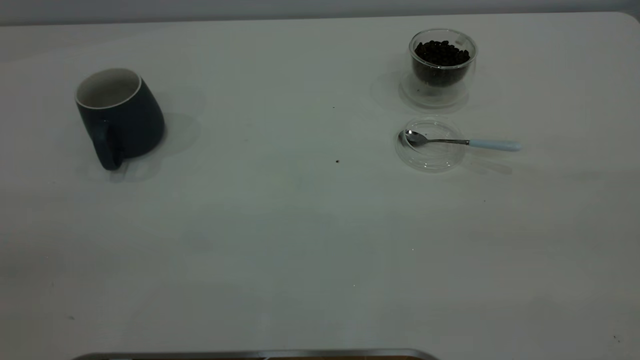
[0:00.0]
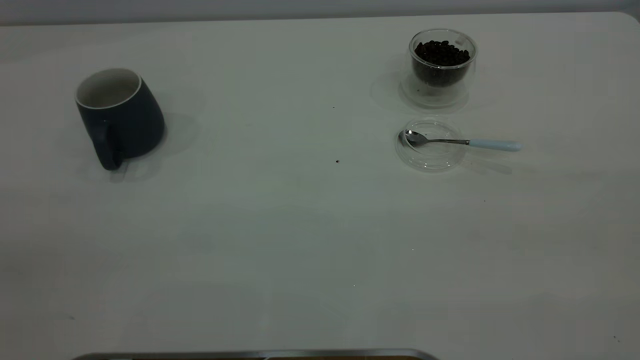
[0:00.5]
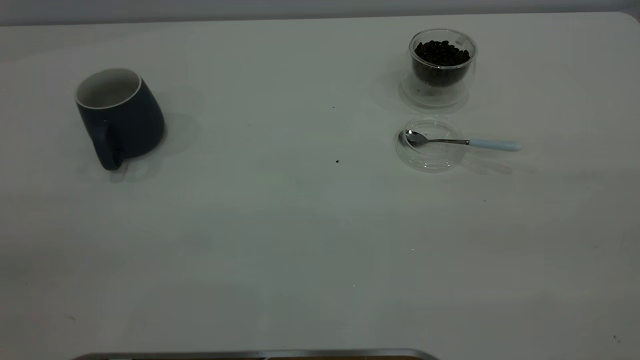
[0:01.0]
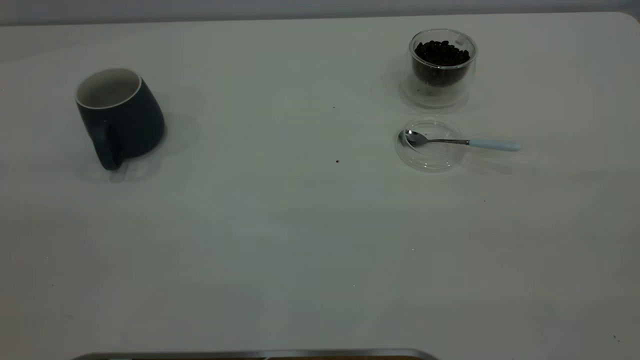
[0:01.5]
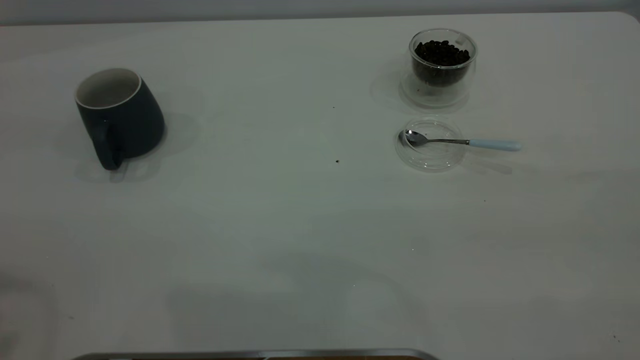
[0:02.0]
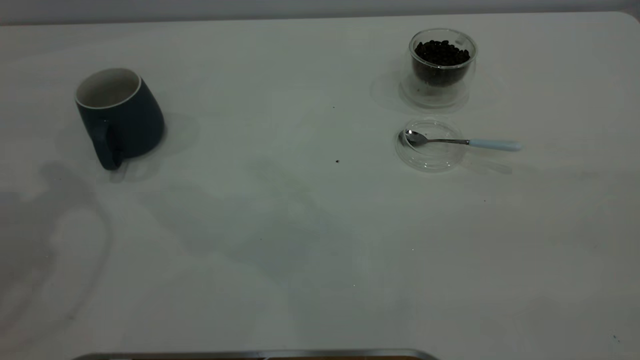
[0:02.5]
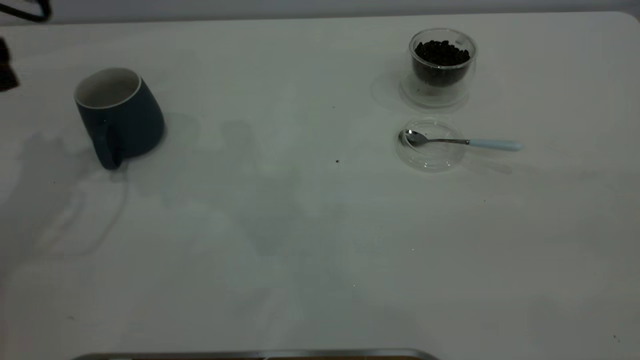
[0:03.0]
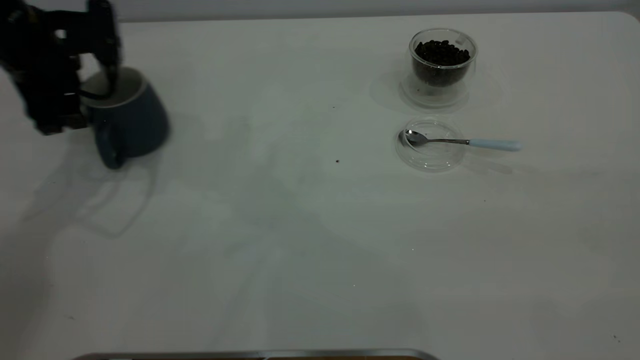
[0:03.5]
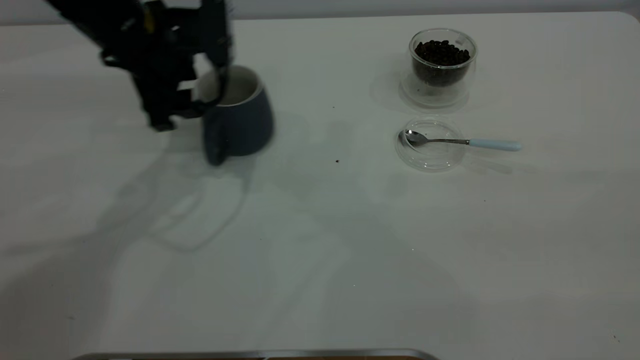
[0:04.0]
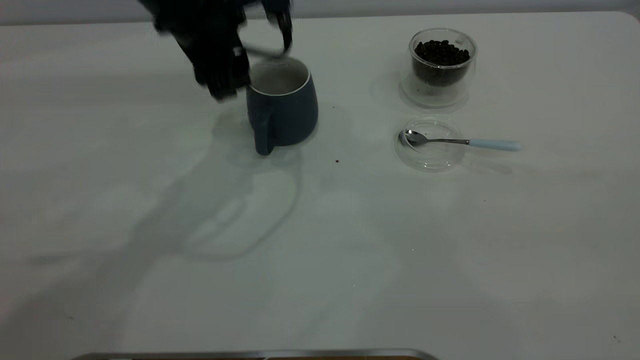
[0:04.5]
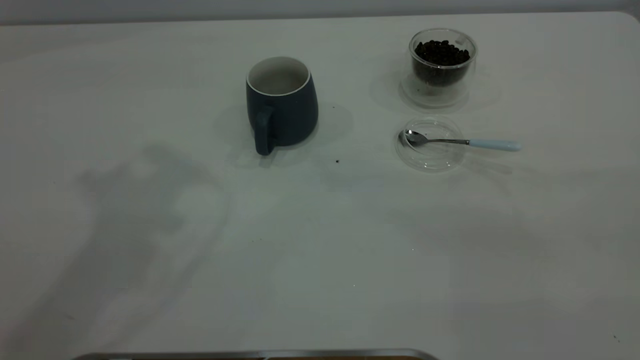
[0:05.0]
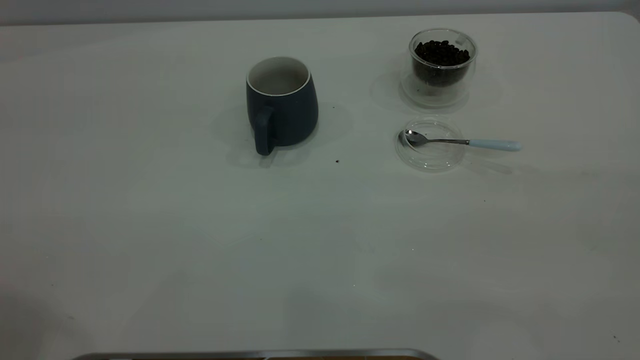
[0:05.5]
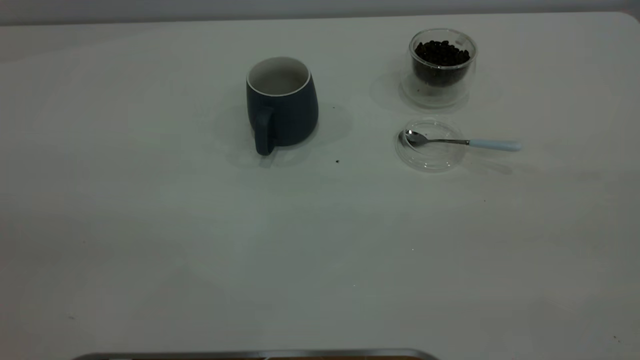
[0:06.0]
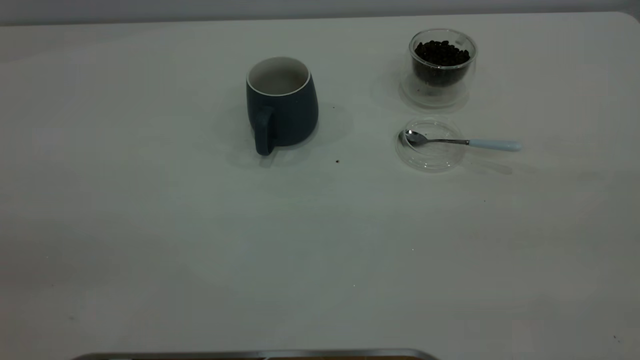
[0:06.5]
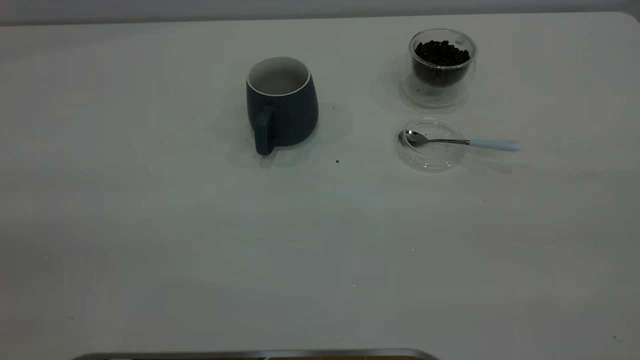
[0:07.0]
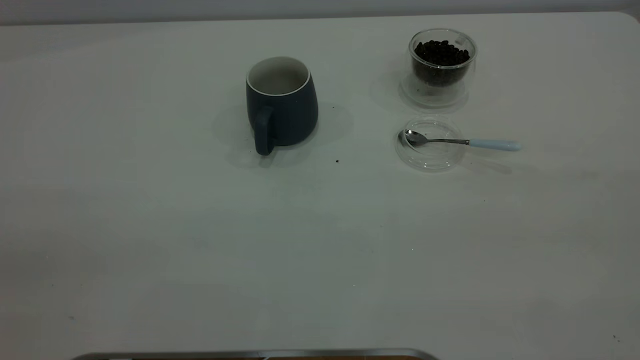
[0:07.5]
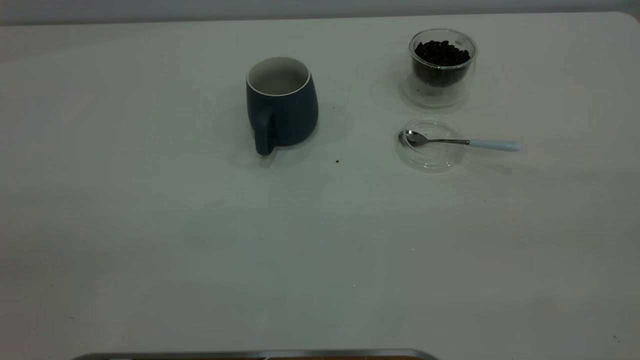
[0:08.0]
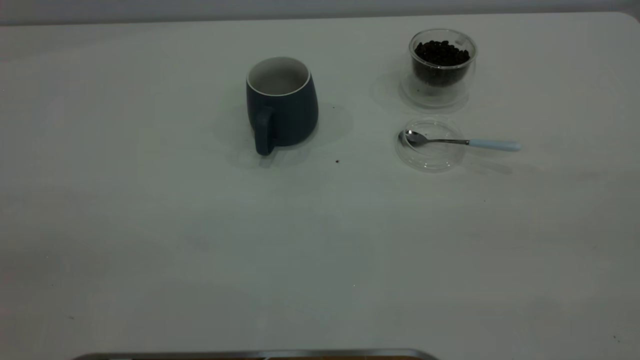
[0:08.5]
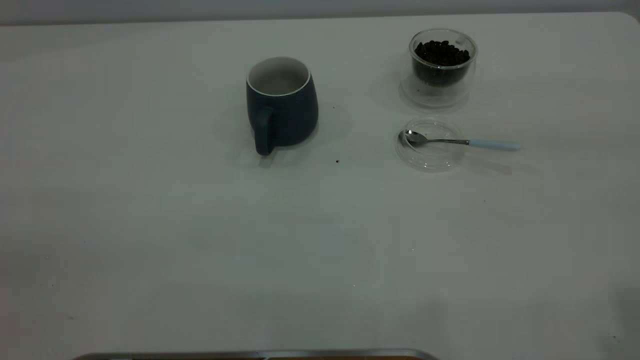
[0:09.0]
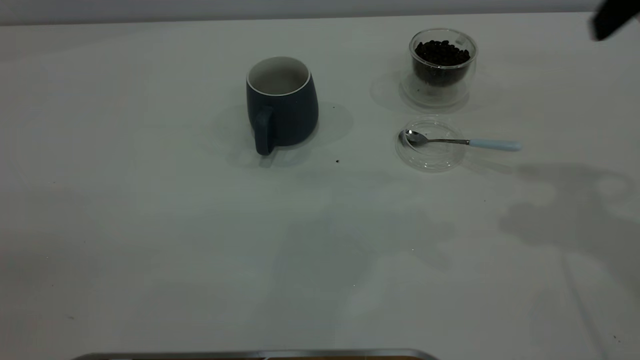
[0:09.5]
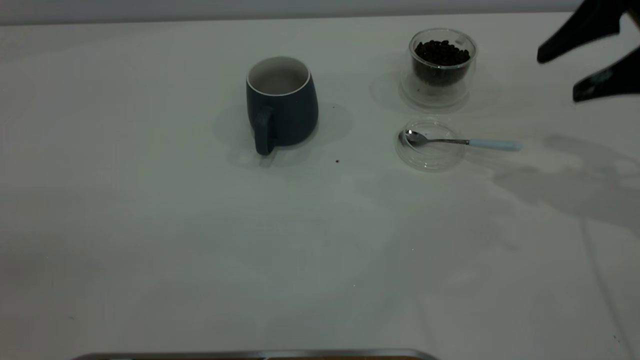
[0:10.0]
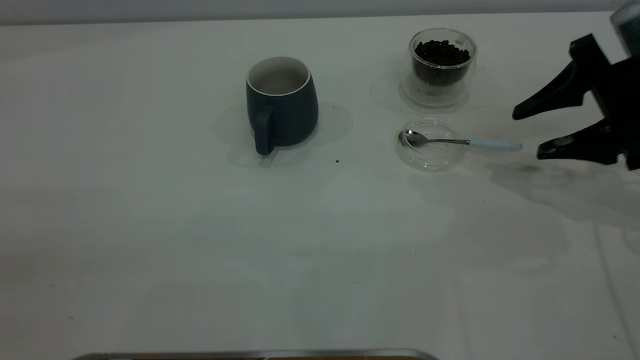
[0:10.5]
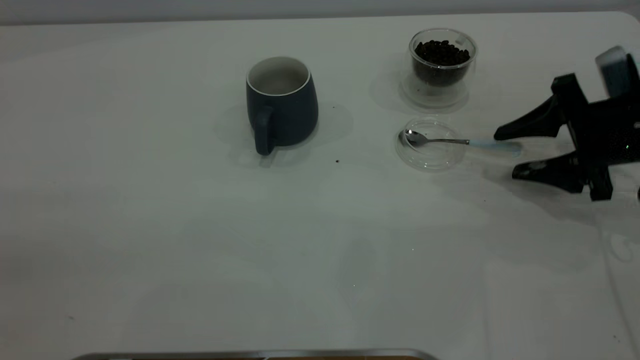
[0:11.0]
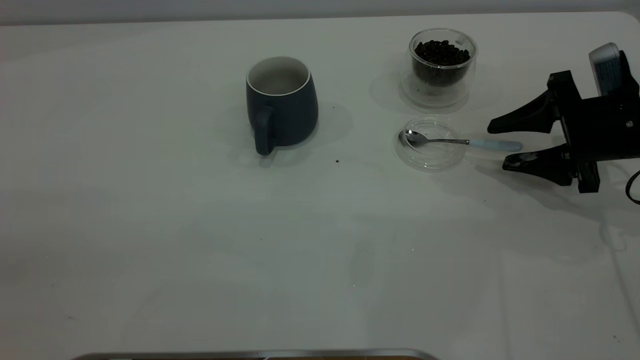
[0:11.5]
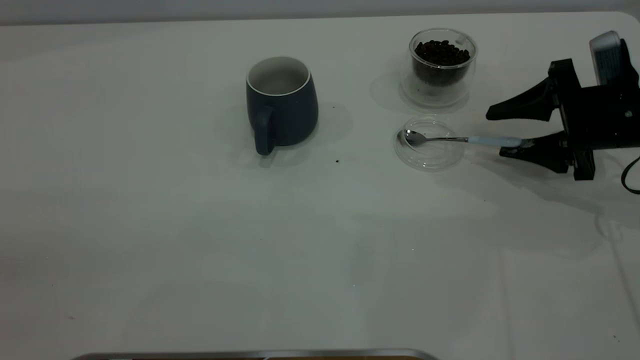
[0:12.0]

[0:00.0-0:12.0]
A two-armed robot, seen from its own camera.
Task of the whole recording: the left gripper place the grey cup in the center of the table, the right gripper take the blue spoon from the cup lid and scoop out the coffee beans from the coffee cup and put them into the grey cup, the right gripper put the spoon back into the cup lid.
Step, 0:00.0 to 0:04.5: Move the cup to the center of view.
0:02.0 to 0:04.0: The left gripper moves downward, forward and to the right, approximately 35 cm.
0:04.0 to 0:06.0: The left gripper goes roughly 40 cm backward and upward.
0:08.0 to 0:10.0: The right gripper goes about 35 cm forward and downward, and opens its fingers.
0:10.0 to 0:12.0: The right gripper shifts roughly 15 cm downward.

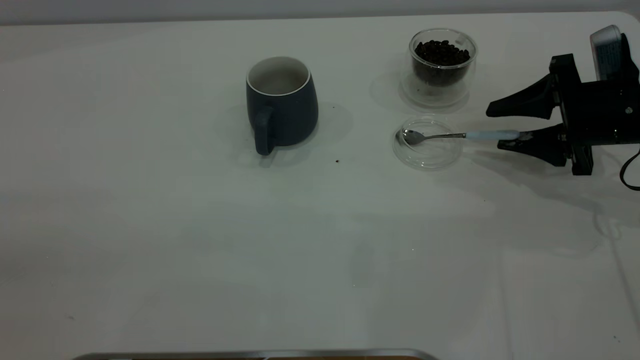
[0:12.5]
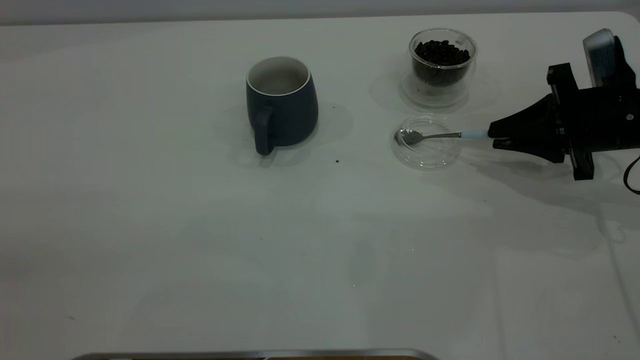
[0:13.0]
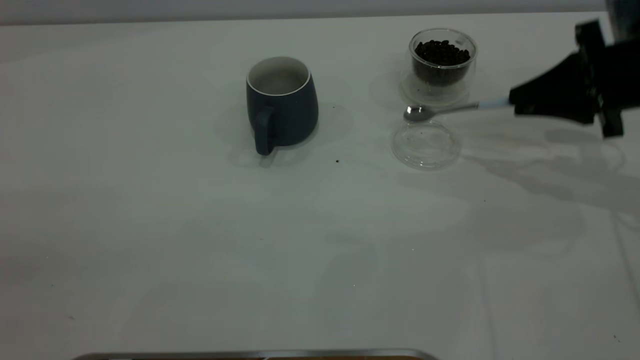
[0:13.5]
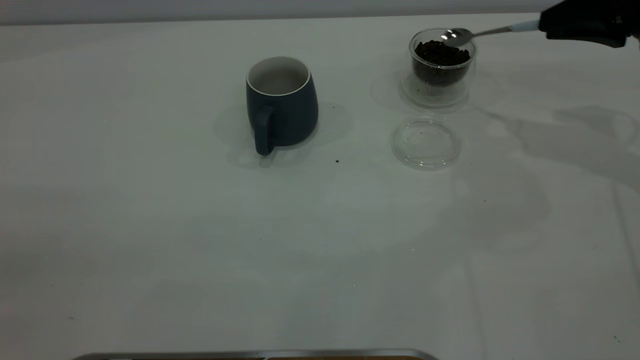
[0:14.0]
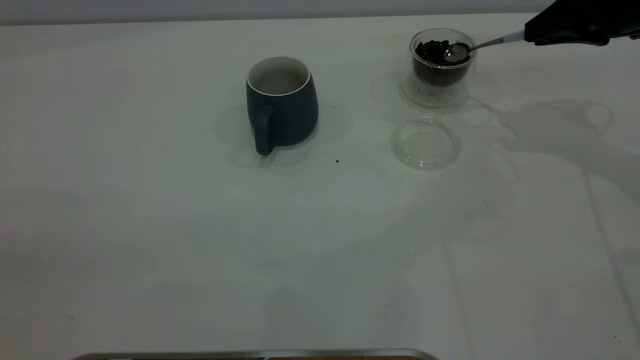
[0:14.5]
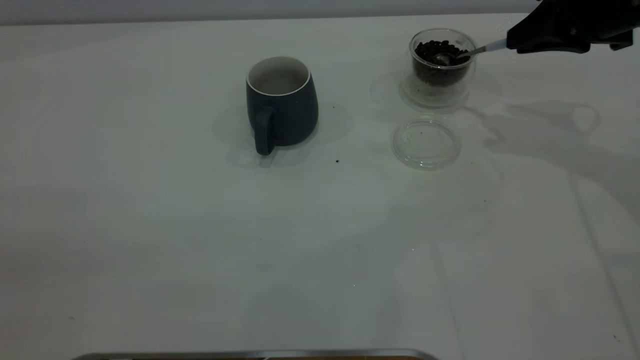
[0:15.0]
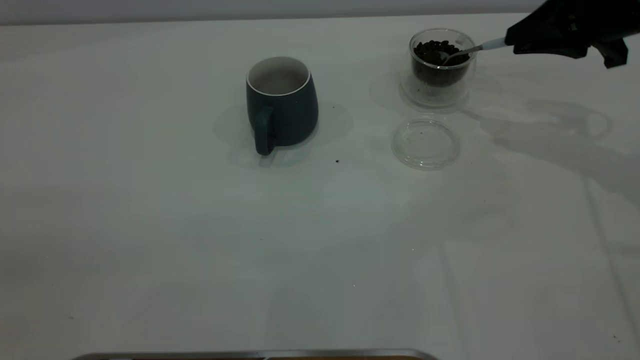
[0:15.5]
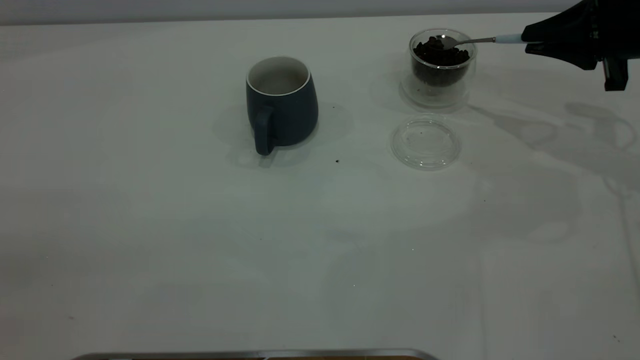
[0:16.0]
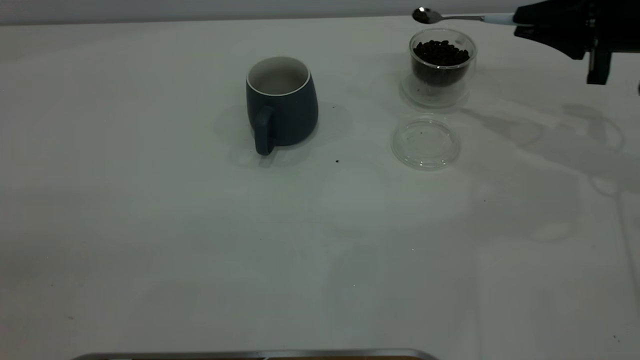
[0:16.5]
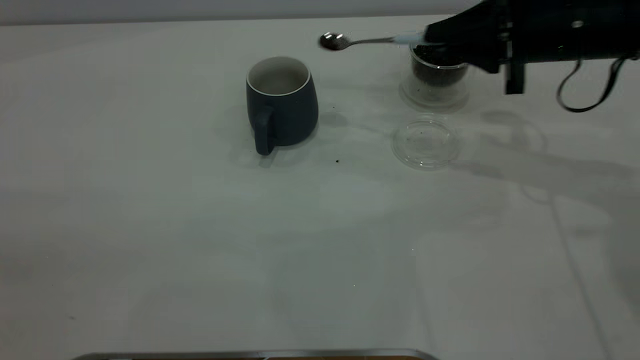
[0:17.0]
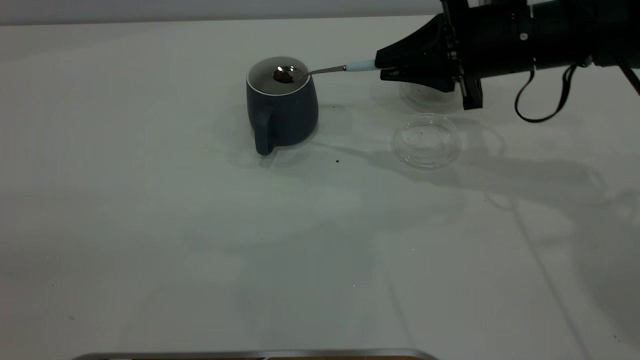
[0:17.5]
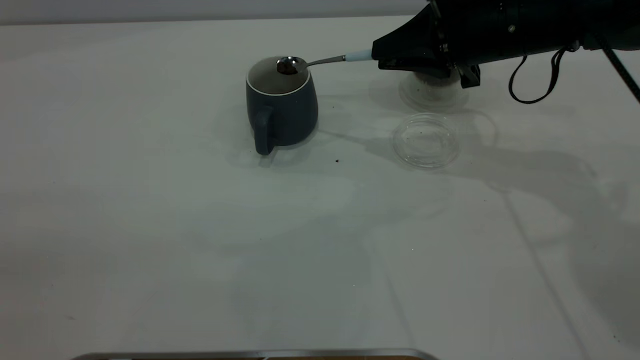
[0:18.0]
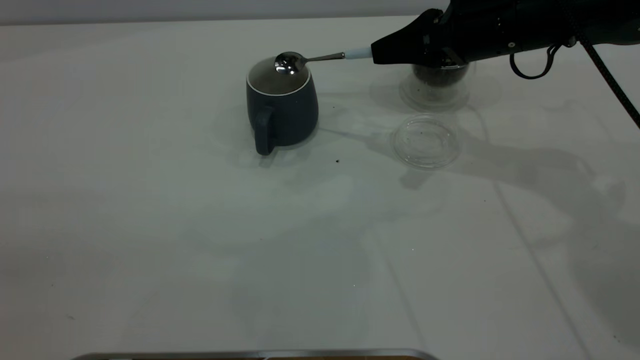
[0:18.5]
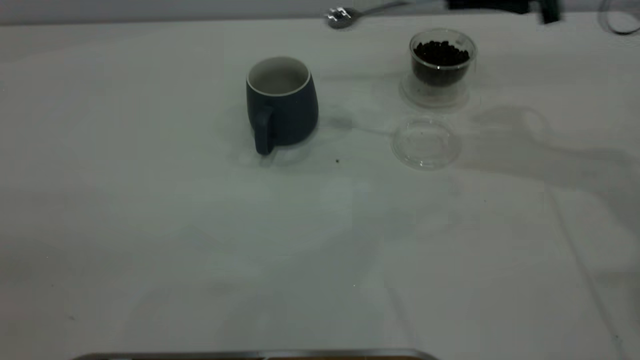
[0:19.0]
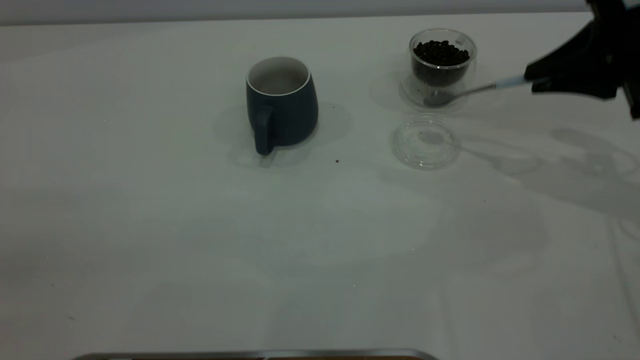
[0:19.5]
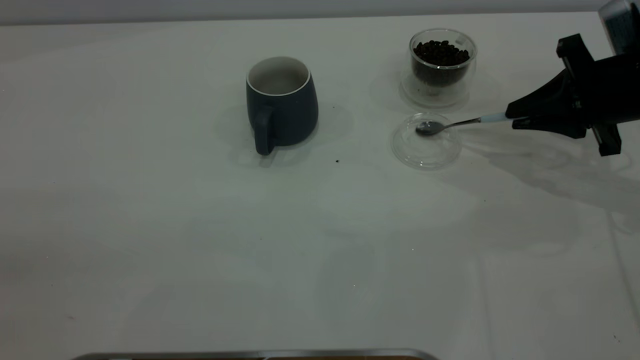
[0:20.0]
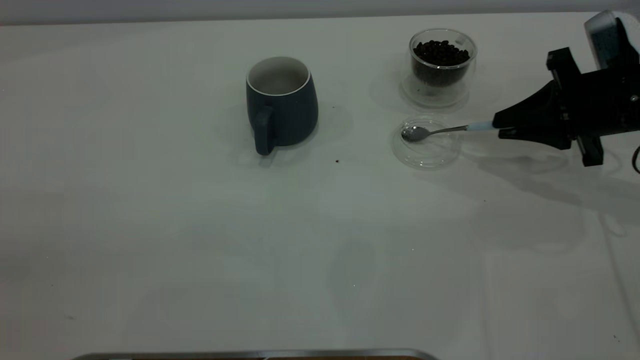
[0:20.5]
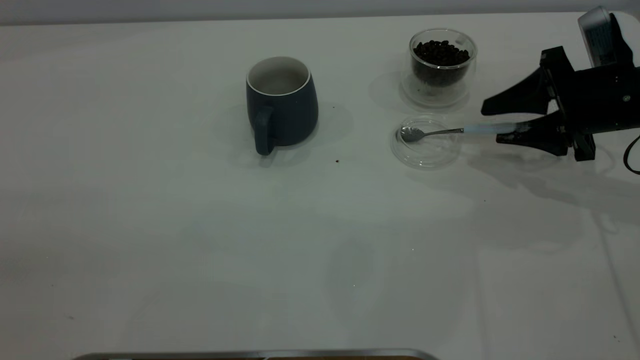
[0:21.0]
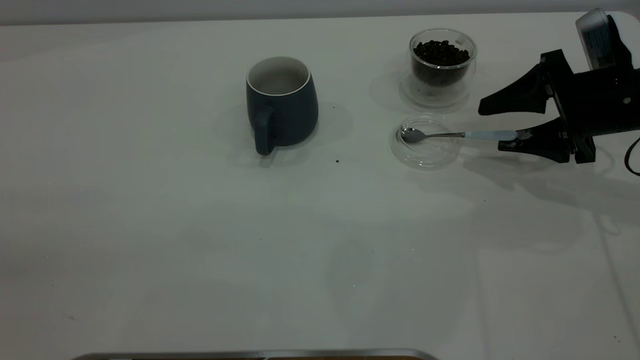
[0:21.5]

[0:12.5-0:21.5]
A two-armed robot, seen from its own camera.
Task of the whole recording: the left gripper place the grey cup in the center of the table, the right gripper take the blue spoon from the cup lid and scoop out the coffee beans from the coffee cup and put them into the grey cup, the right gripper put the spoon back into the cup lid.
Step, 0:14.0 to 0:18.5: Scoop a spoonful of beans into the cup.
0:12.5 to 0:14.5: The right gripper heads upward and forward, covering some 10 cm, and closes up.
0:14.5 to 0:17.0: The right gripper is displaced to the left by approximately 10 cm.
0:17.0 to 0:19.5: The right gripper heads to the right, covering approximately 10 cm.
0:19.5 to 0:21.5: The right gripper travels downward by some 5 cm, and opens up.
